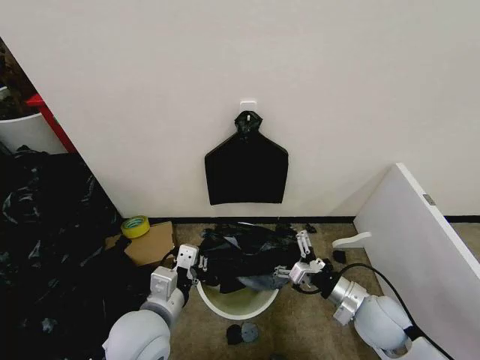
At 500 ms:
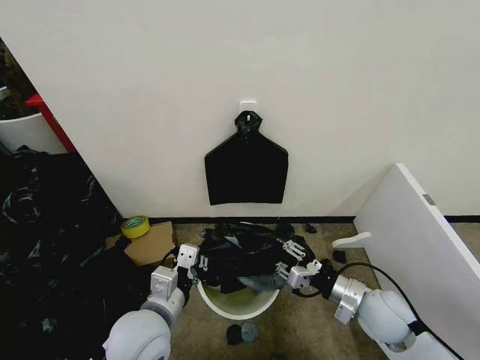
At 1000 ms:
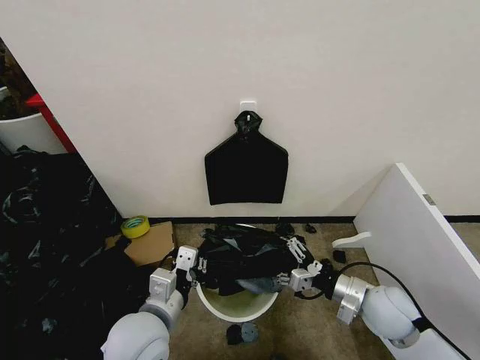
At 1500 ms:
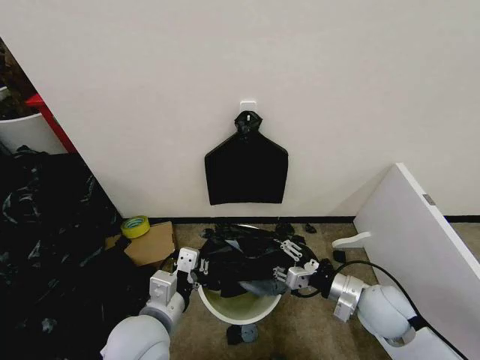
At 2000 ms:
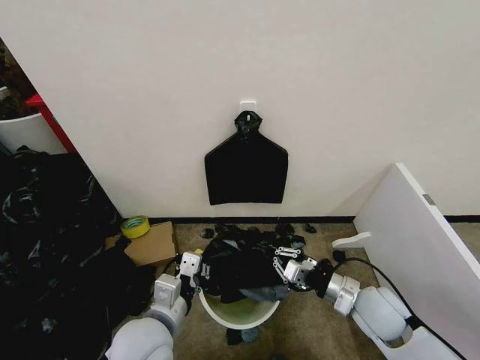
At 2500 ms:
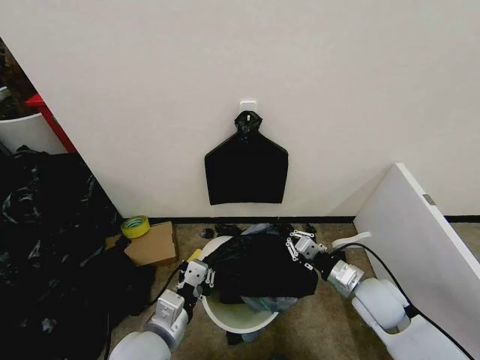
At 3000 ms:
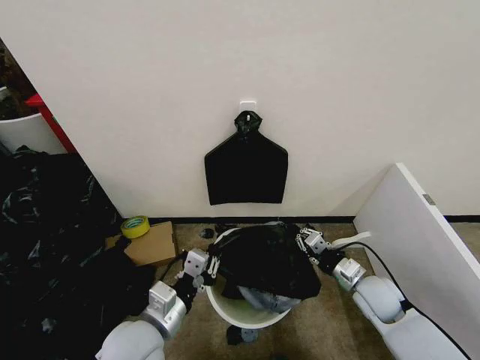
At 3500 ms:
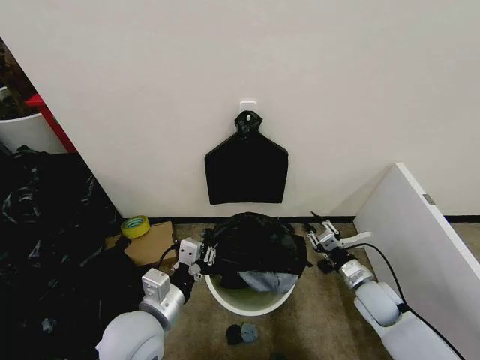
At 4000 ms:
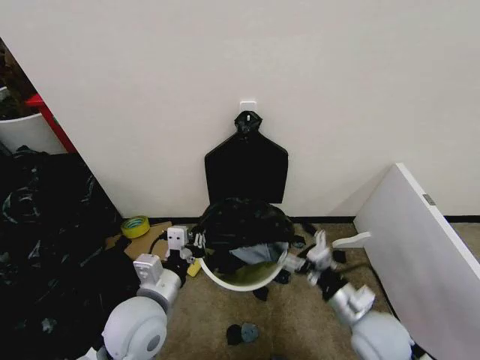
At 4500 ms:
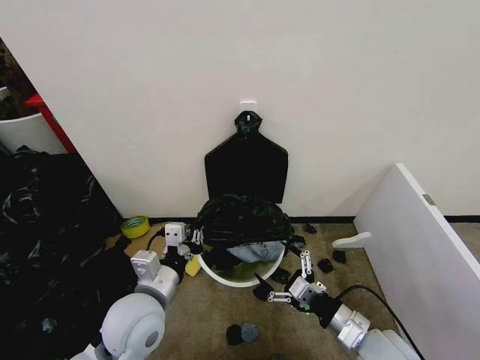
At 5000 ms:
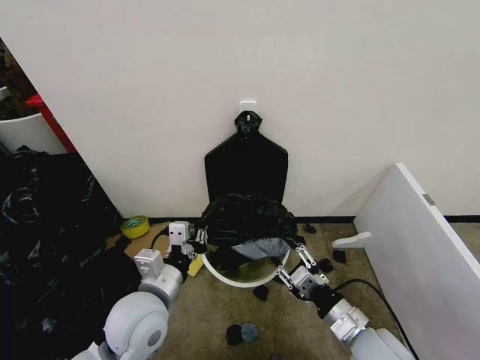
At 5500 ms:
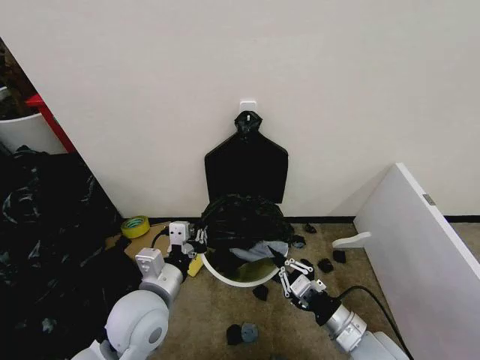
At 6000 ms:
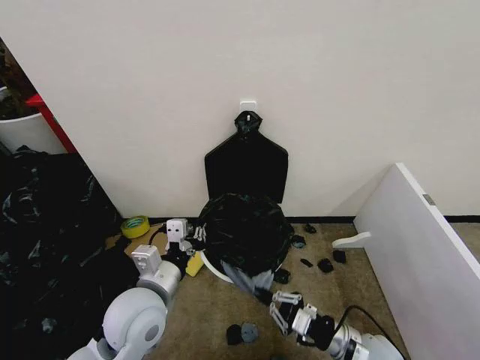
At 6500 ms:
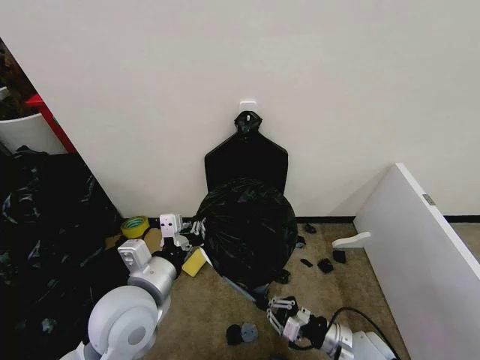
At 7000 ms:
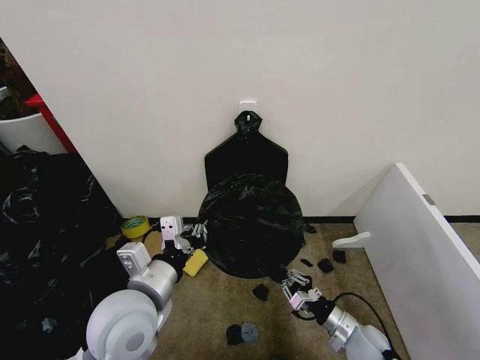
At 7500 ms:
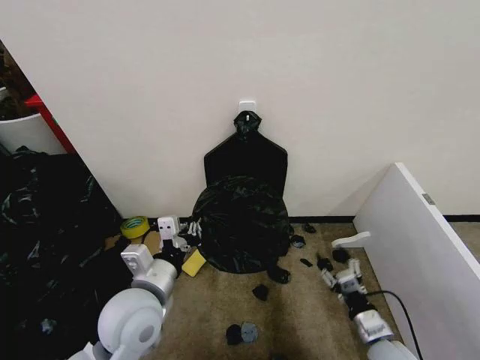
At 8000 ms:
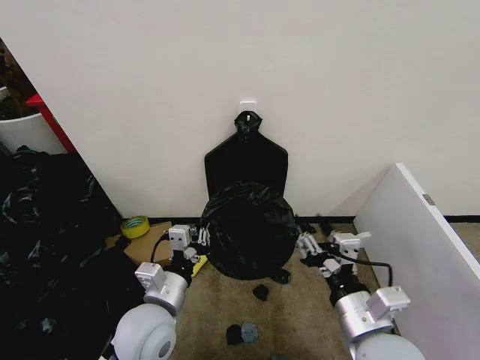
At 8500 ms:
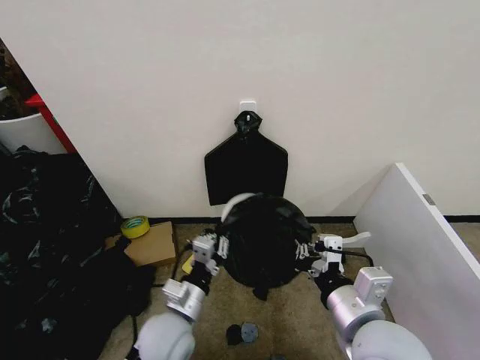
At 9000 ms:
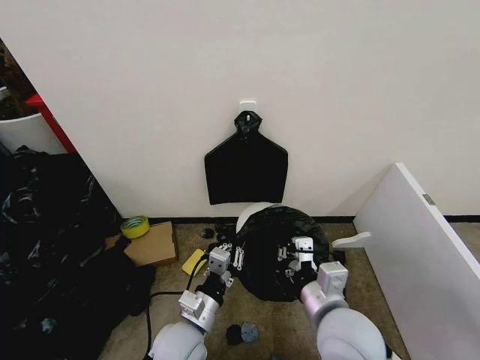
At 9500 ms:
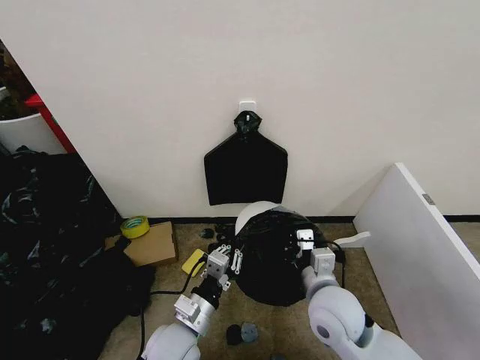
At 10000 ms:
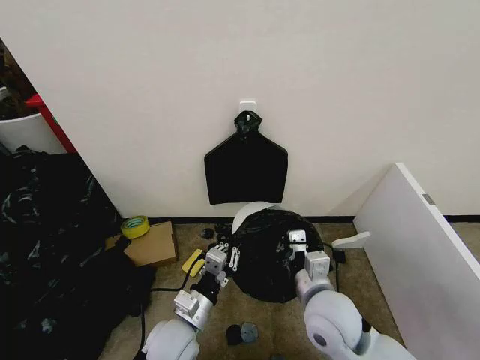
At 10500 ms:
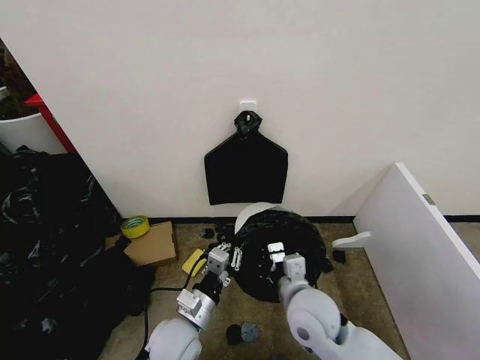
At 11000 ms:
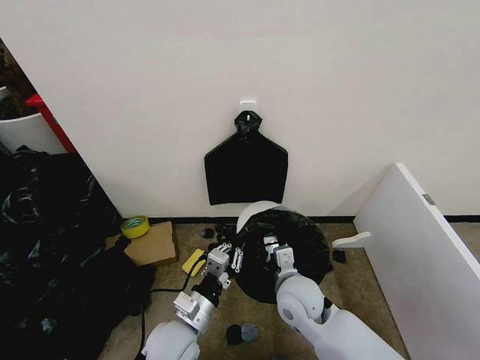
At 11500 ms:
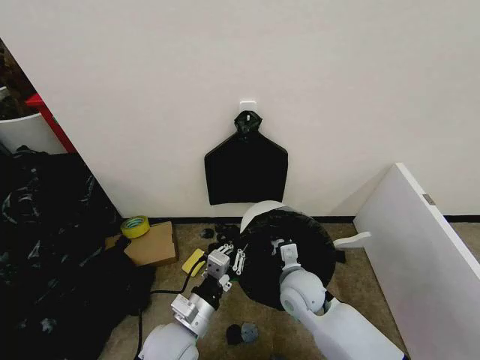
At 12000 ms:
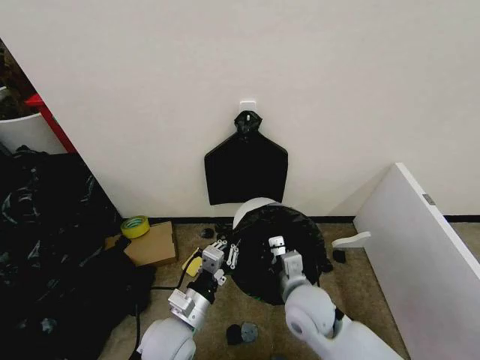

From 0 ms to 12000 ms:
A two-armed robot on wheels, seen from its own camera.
Task of the whole recording: Place the garbage bag over the trash bin.
From 0 ms to 2000 ms: The right gripper closes its fingers.
From 2000 ms to 4000 ms: The right gripper opens.
From 4000 ms to 6000 ms: The right gripper heads downward, covering approximately 5 cm, and closes up.
From 6000 ms to 8000 ms: The right gripper goes about 15 cm upward, and opens.
From 8000 ms to 10000 ms: The left gripper travels downward by roughly 10 cm. Meanwhile the right gripper moves forward, about 10 cm, and closes its fingers.

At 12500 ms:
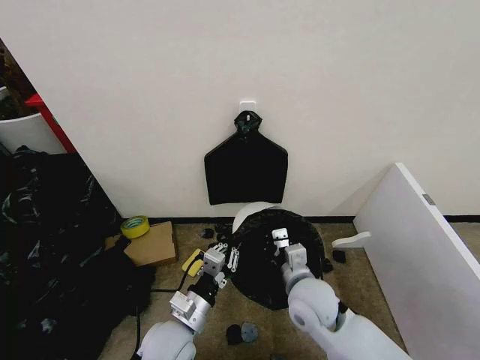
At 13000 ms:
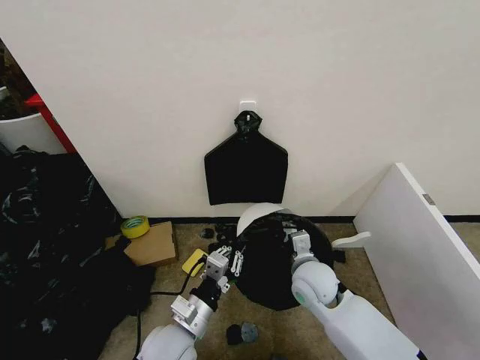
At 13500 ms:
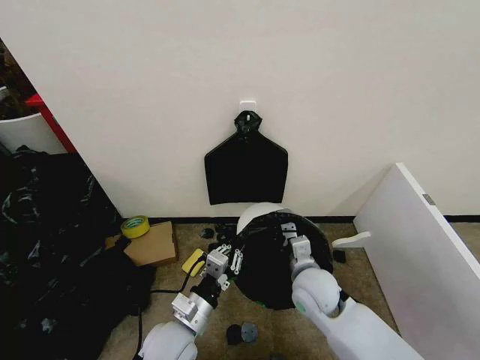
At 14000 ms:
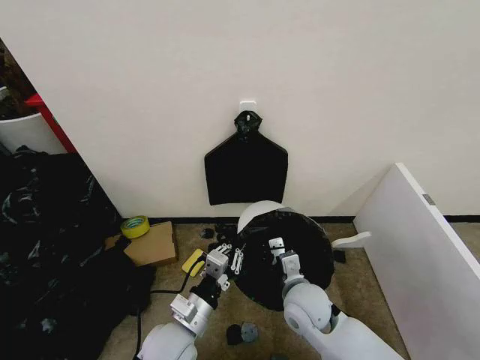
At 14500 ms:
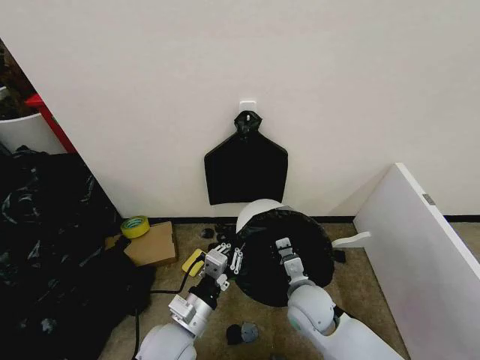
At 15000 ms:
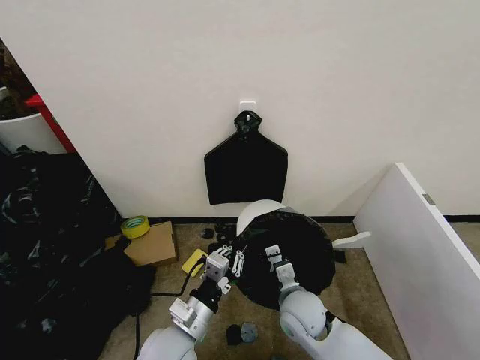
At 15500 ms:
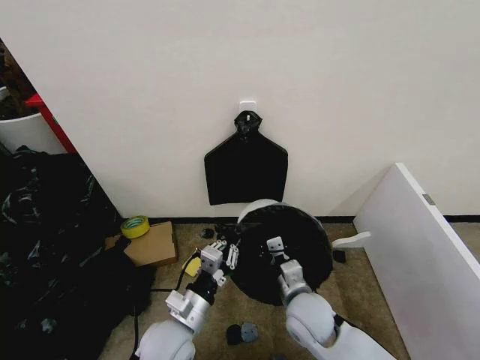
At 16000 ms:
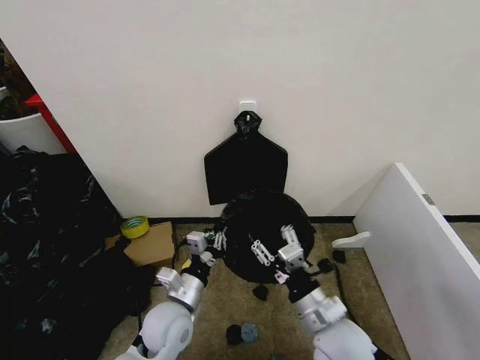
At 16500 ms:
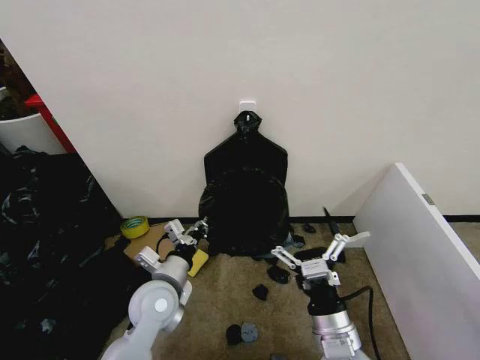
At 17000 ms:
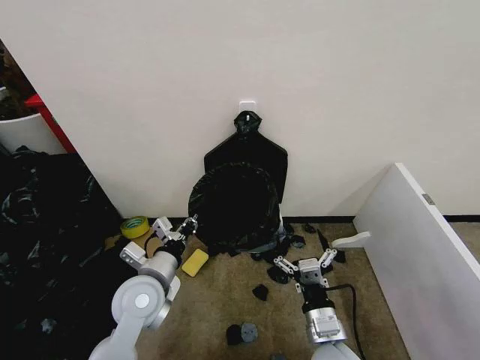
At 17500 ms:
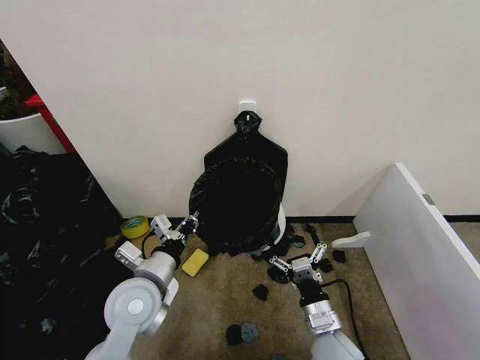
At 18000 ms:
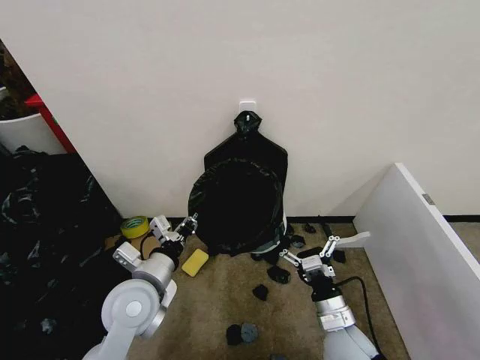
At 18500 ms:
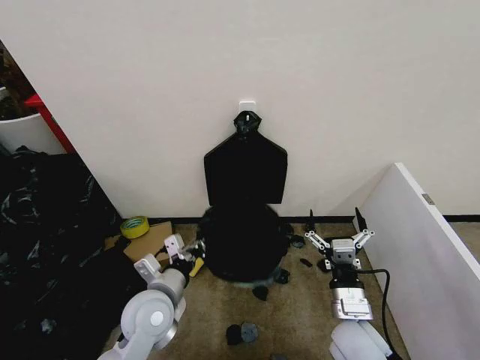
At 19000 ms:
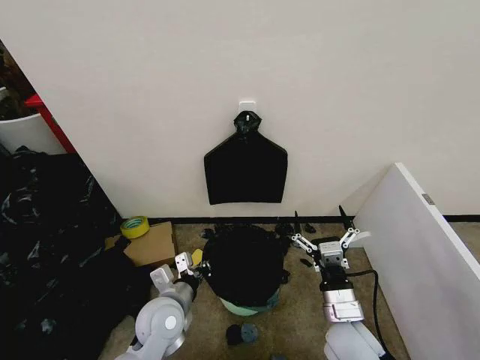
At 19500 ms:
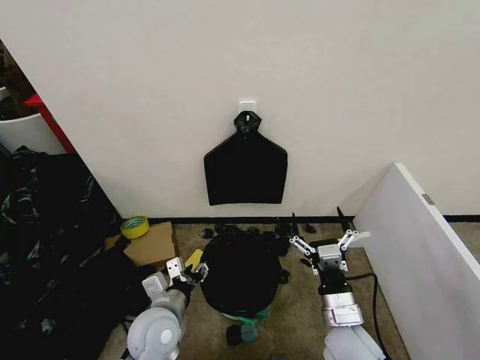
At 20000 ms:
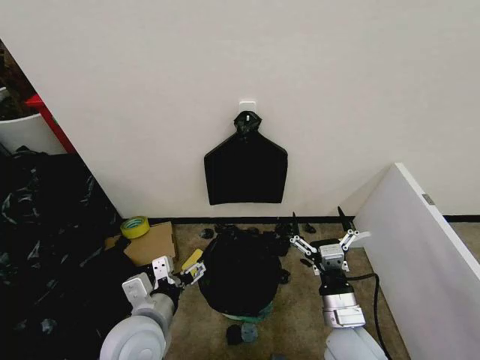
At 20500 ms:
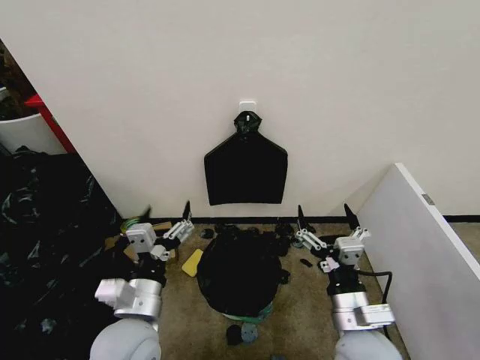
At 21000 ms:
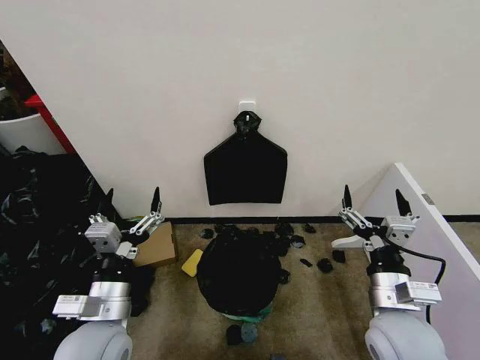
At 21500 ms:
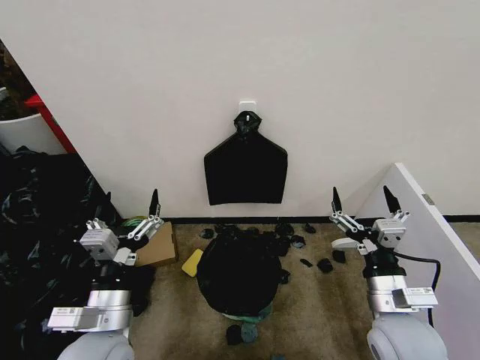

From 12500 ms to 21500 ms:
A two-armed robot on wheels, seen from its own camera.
Task of the whole recording: Place the garbage bag over the trash bin.
From 14500 ms to 17000 ms: The left gripper moves forward, to the left and upward, roughly 10 cm. Meanwhile the right gripper heads backward, covering approximately 10 cm, and opens its fingers.
From 17000 ms to 19500 ms: The left gripper travels downward by roughly 5 cm, and opens its fingers.
From 19500 ms to 21500 ms: The right gripper moves upward and to the right, some 10 cm, while the left gripper shifts some 10 cm upward and backward, and opens.
